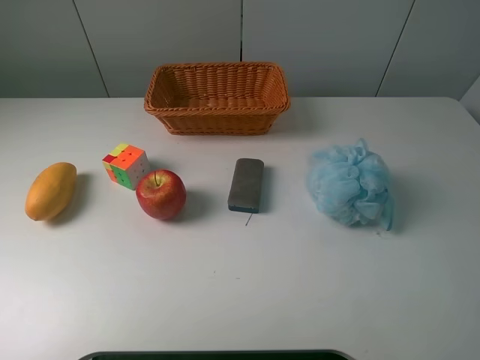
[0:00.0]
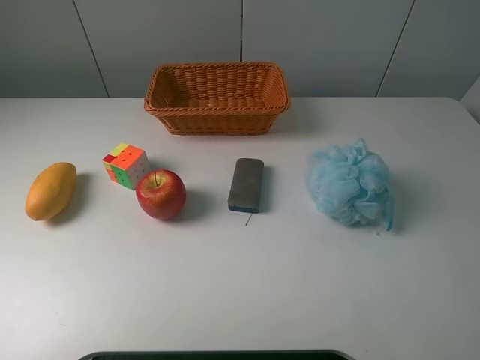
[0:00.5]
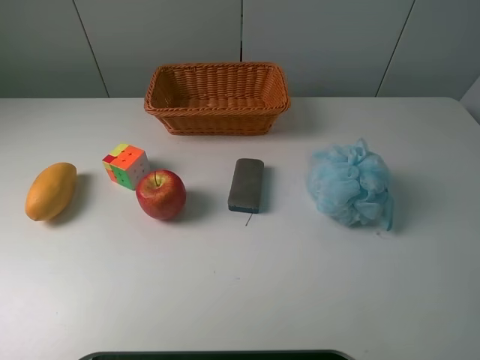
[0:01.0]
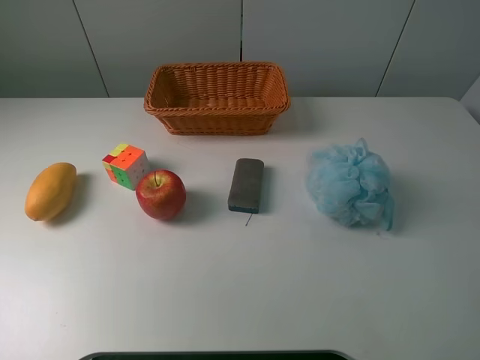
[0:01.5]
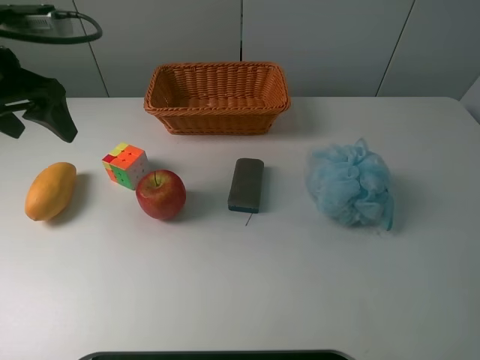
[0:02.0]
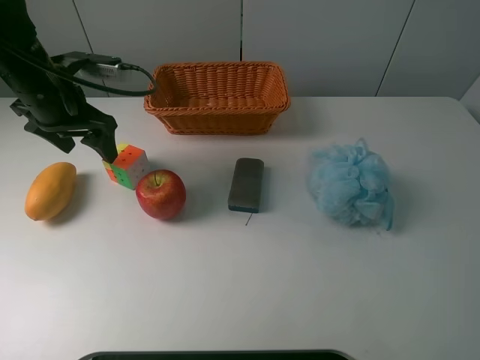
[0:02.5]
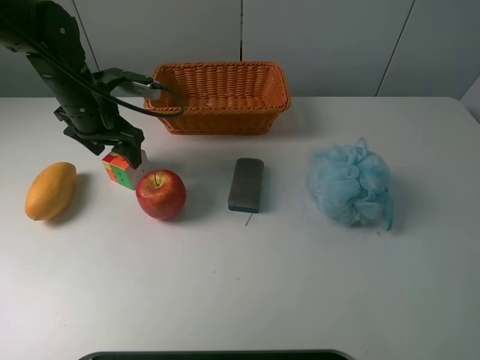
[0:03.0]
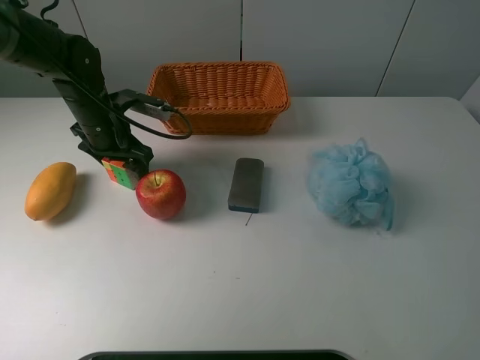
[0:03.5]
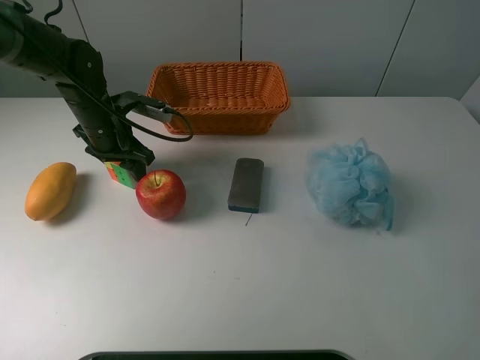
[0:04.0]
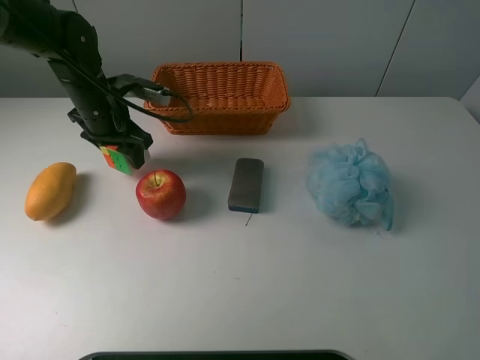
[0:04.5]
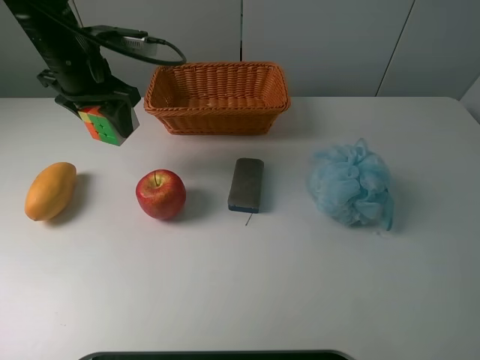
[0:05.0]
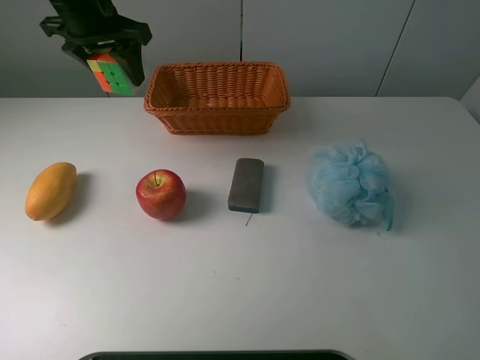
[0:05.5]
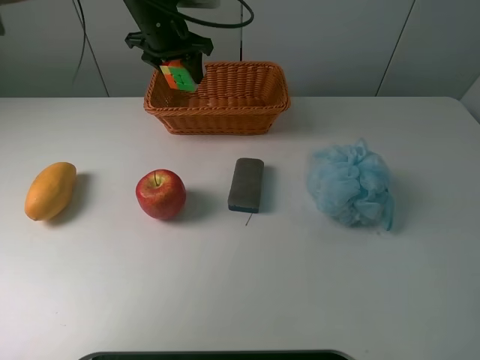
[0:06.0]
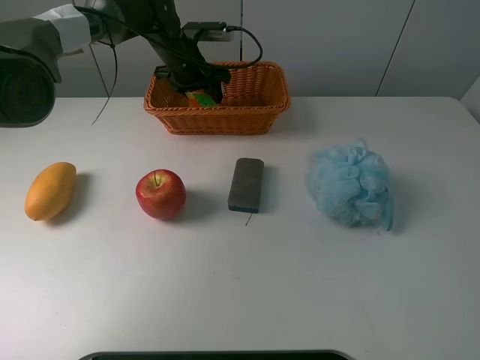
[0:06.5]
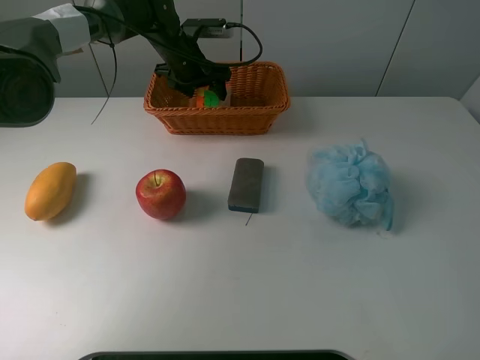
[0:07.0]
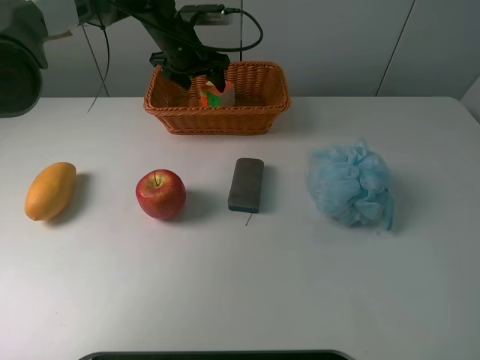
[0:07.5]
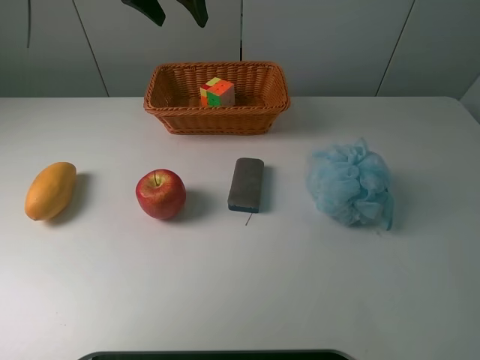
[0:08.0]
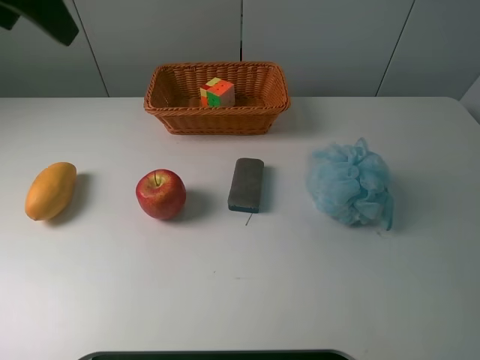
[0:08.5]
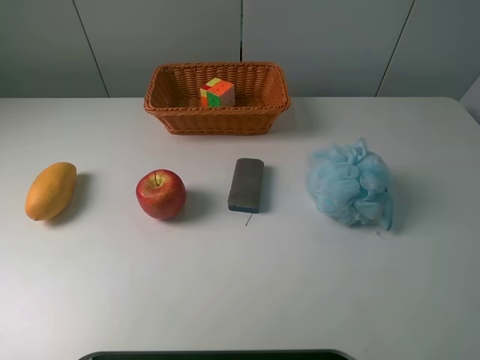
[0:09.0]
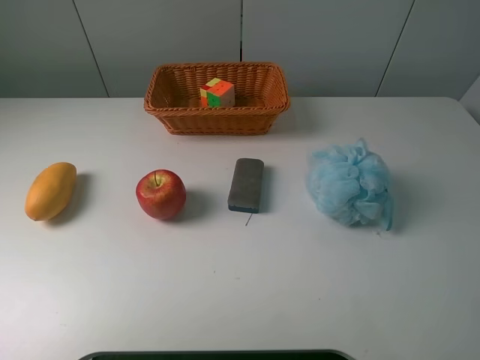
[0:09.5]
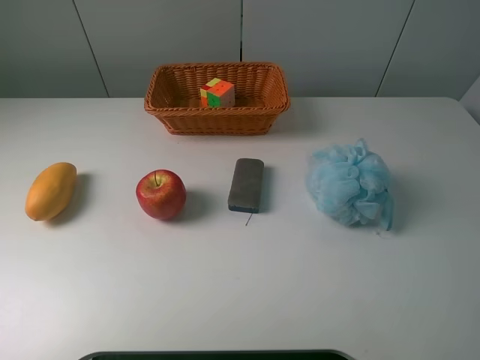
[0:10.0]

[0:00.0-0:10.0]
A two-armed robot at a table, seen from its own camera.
Task of the whole recording: use a picker to grab the item closest to the apple and place it in the basket.
Step, 0:00.0 to 0:04.0: Grasp the Rubik's Cube with the left gripper.
Step, 0:04.5 to 0:07.5: Place the Rubik's Cube into the basket with the left gripper.
0:00.0 to 0:02.0: The left gripper shifts approximately 30 cm forward.
0:02.0 to 0:04.0: The left gripper heads downward, forward and to the right, covering some 20 cm, and closes its fingers.
0:04.0 to 0:06.0: The left gripper moves forward, upward and to the right, some 20 cm.
0:06.0 to 0:08.0: The left gripper shifts about 10 cm upward, and opens its fingers.
0:08.0 to 0:10.0: The left gripper moves backward and to the left, some 50 cm.
